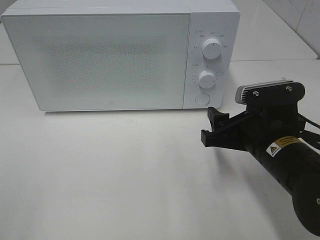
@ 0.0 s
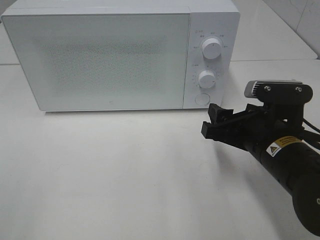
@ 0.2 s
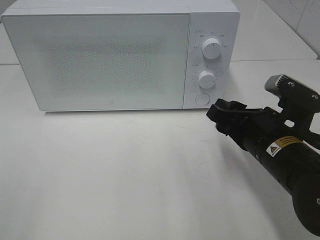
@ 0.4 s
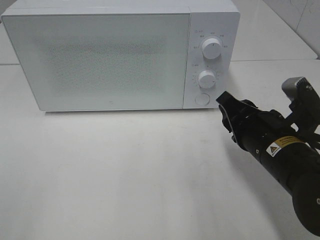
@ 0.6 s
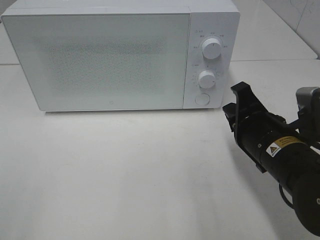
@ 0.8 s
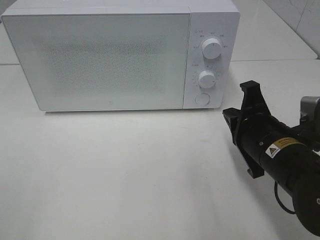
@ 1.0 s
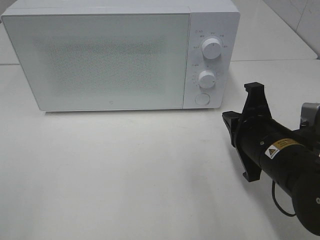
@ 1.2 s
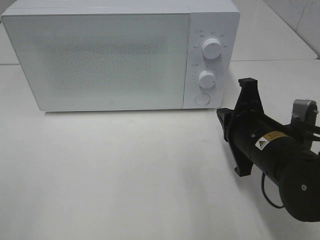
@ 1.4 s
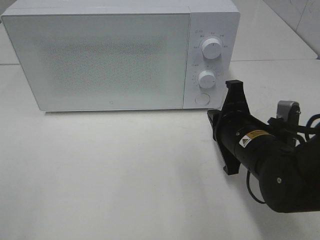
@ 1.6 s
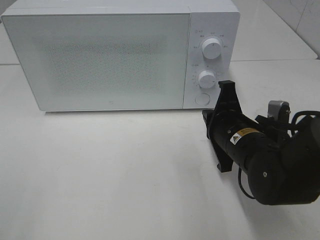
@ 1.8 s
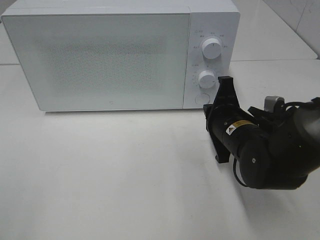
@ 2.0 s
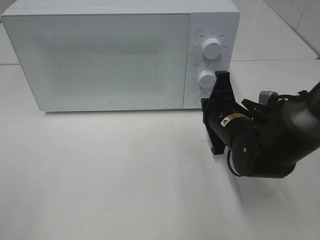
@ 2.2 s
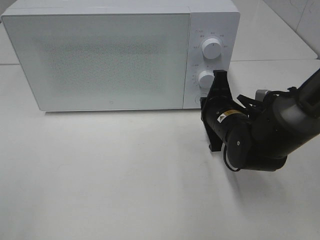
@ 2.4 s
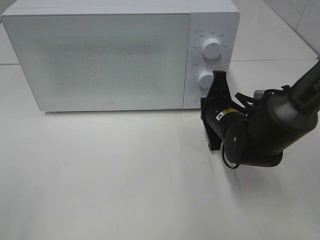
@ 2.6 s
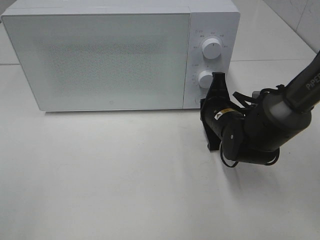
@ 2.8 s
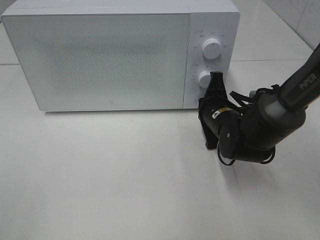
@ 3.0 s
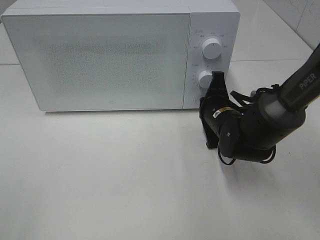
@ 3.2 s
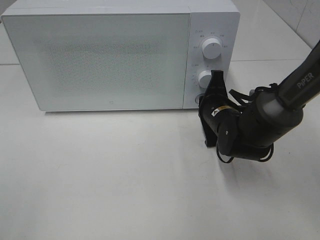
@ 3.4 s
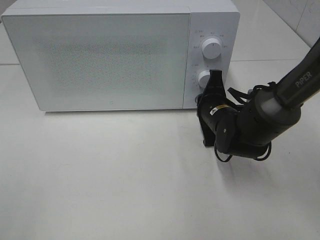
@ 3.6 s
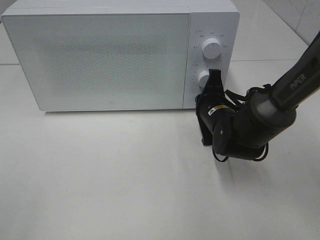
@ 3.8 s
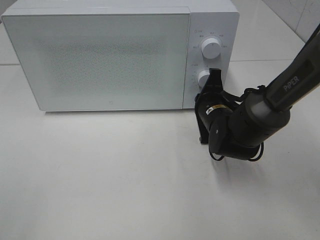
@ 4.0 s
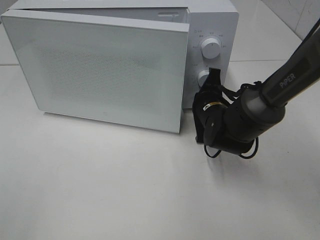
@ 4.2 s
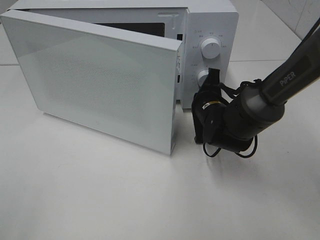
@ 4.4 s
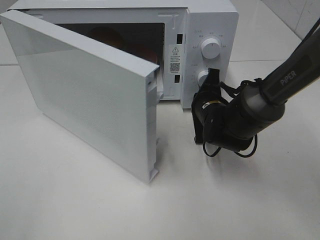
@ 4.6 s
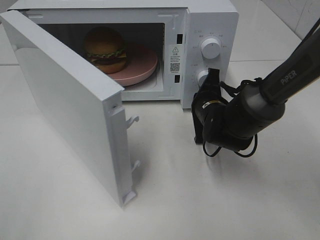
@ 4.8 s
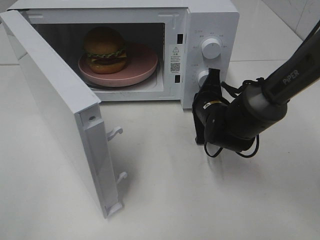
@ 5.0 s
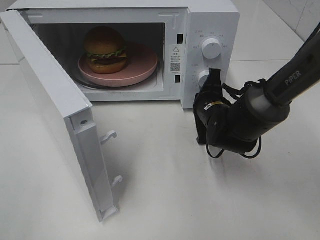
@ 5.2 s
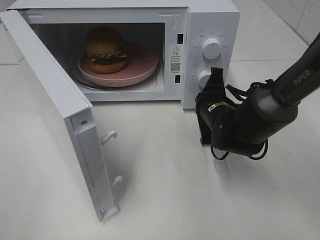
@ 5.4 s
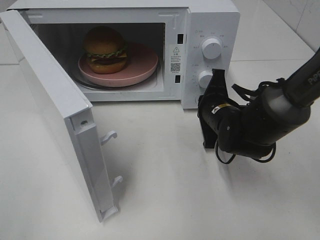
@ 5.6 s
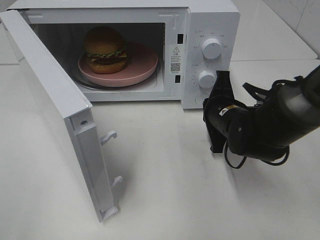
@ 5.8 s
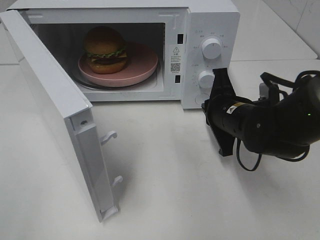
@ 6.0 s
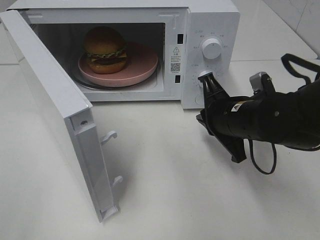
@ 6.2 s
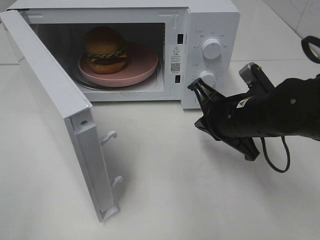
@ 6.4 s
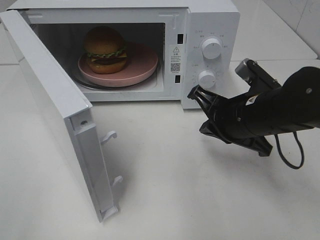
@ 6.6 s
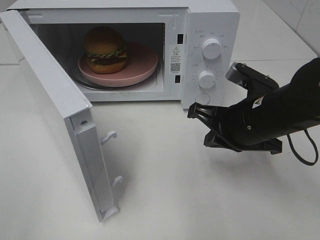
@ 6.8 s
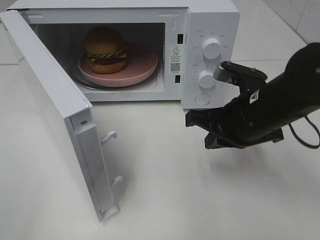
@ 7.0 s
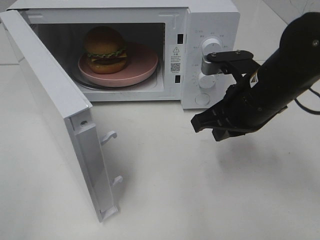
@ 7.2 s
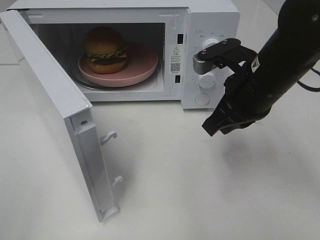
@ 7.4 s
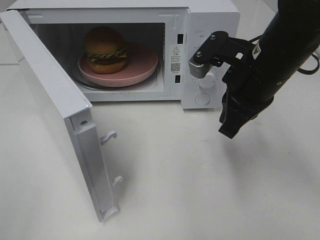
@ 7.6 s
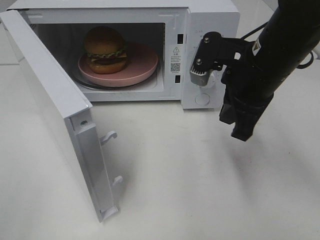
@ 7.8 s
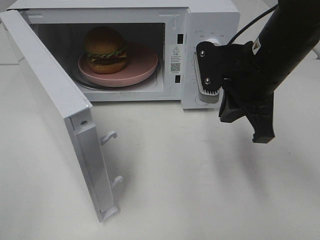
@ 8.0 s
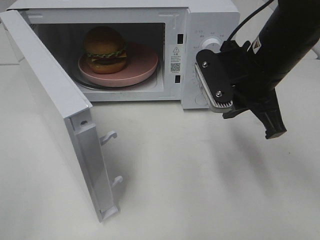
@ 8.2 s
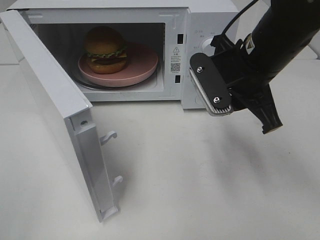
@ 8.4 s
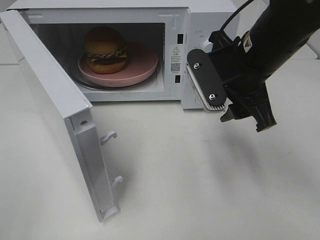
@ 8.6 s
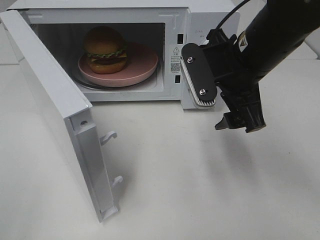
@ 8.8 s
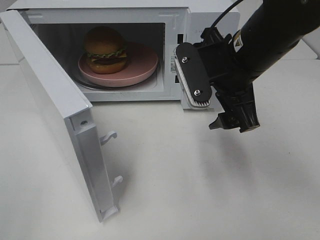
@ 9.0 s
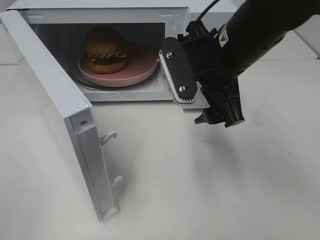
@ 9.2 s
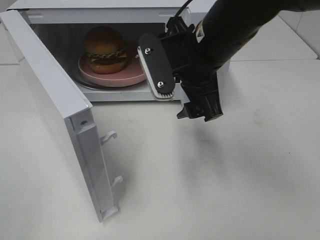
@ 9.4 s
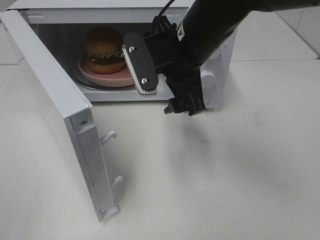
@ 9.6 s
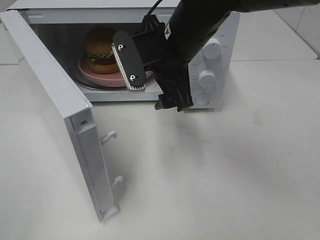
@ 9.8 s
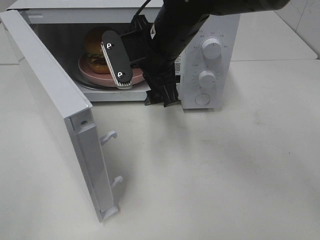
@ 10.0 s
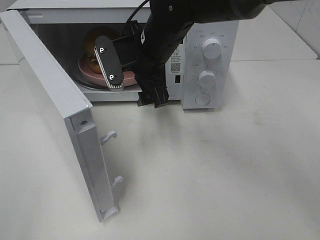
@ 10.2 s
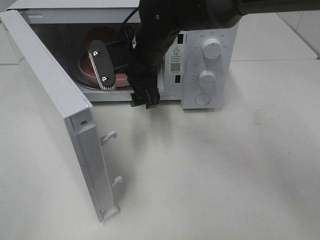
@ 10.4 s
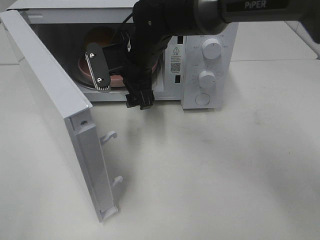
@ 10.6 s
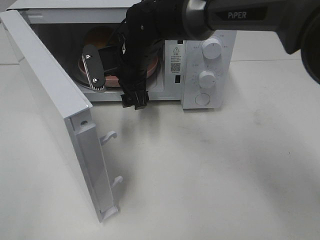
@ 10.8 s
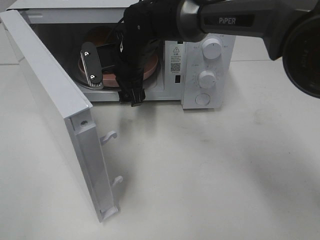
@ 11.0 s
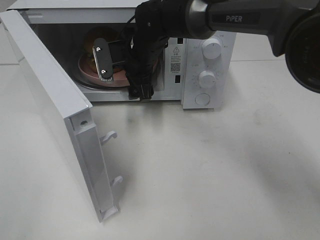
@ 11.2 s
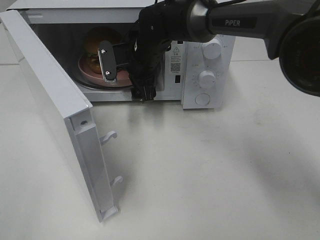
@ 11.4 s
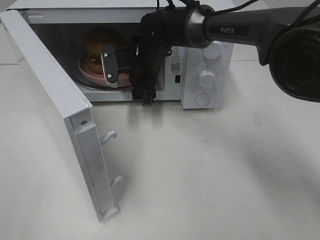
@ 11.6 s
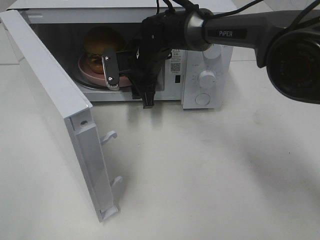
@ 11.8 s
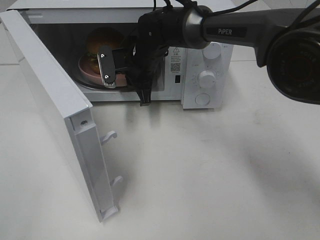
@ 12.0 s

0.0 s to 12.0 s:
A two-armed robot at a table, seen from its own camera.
Task of the whole recording: Heat the burger.
Step, 0.0 to 6.0 s: Right hand: press the switch.
0.0 to 1.6 s: The right gripper closes.
1.6 to 3.0 s: The right gripper heads forward, covering roughly 10 cm.
3.0 to 4.4 s: The grippers make only small movements.
4.4 to 6.0 s: The right gripper heads backward, covering roughly 5 cm.
6.0 to 7.6 s: The right gripper heads upward, covering roughly 10 cm.
7.6 to 9.0 s: The right gripper opens its fingers.
9.0 to 10.4 s: The right gripper travels to the left and forward by roughly 15 cm.
10.4 to 12.0 s: The right gripper shifts roughly 5 cm forward, and closes.

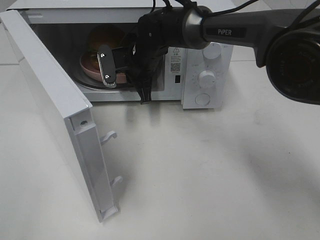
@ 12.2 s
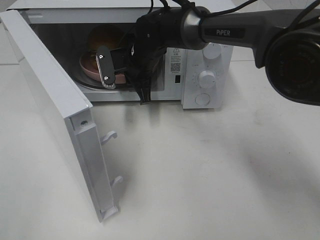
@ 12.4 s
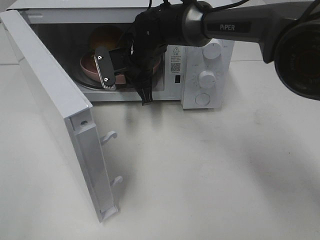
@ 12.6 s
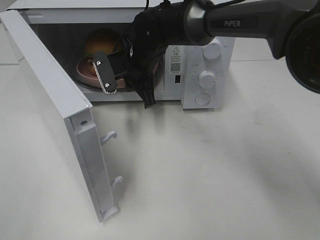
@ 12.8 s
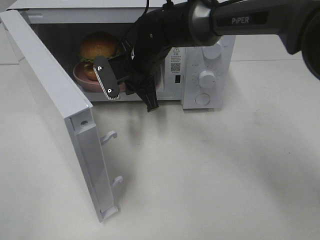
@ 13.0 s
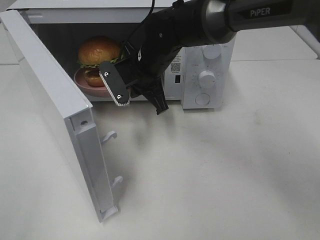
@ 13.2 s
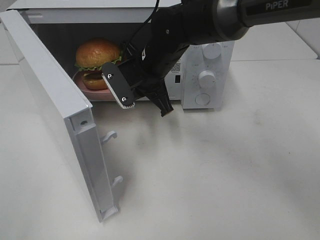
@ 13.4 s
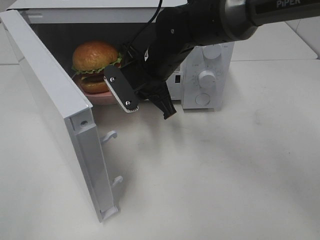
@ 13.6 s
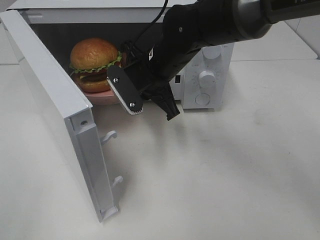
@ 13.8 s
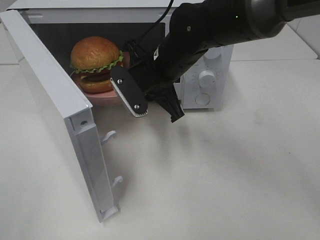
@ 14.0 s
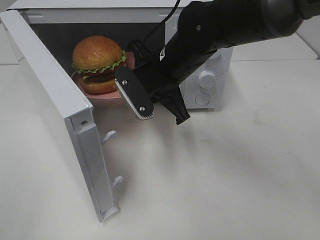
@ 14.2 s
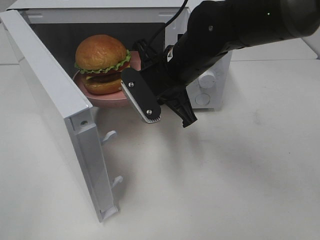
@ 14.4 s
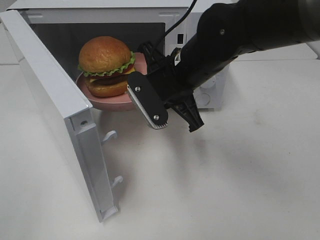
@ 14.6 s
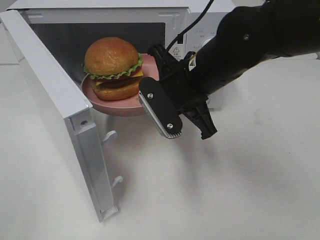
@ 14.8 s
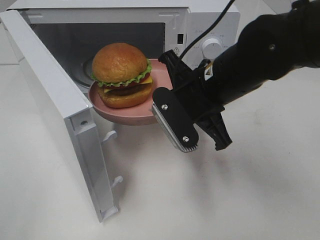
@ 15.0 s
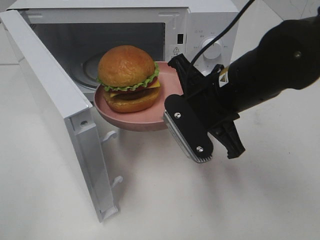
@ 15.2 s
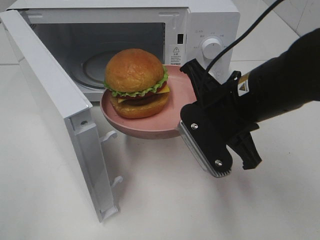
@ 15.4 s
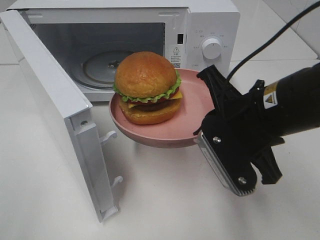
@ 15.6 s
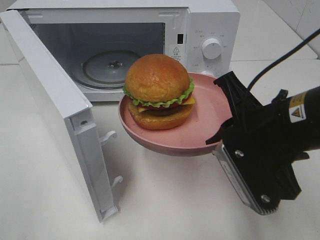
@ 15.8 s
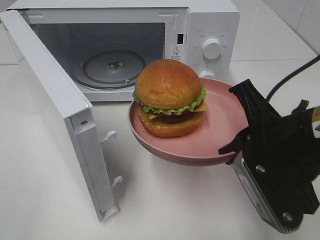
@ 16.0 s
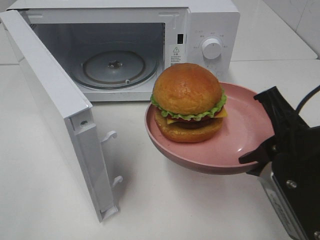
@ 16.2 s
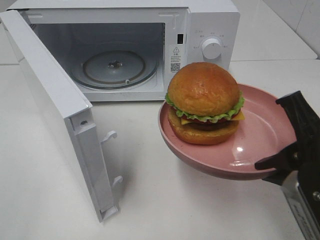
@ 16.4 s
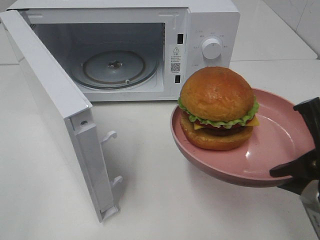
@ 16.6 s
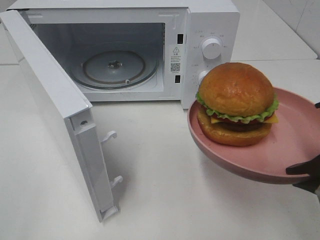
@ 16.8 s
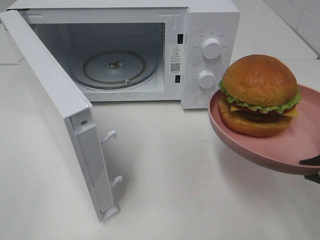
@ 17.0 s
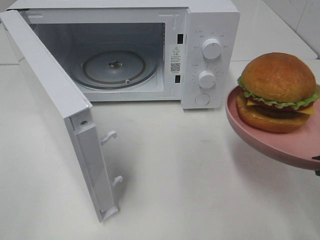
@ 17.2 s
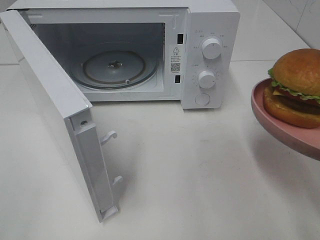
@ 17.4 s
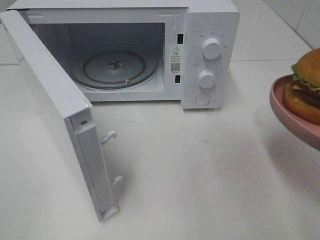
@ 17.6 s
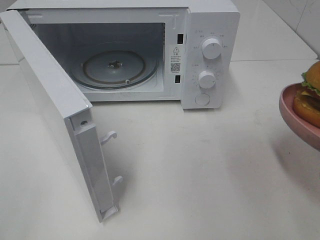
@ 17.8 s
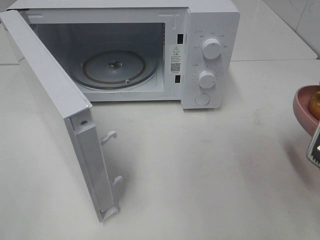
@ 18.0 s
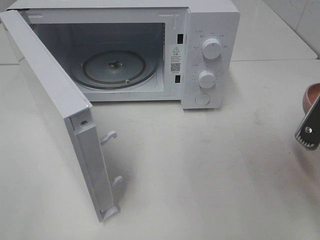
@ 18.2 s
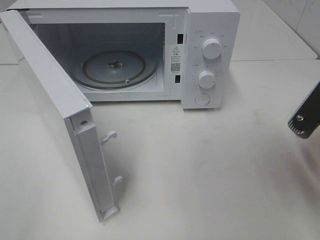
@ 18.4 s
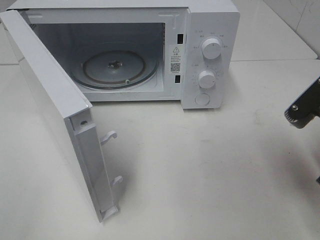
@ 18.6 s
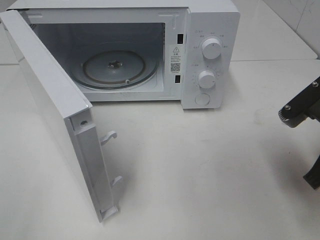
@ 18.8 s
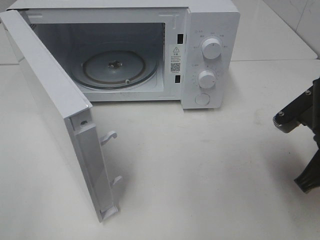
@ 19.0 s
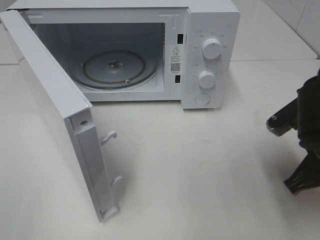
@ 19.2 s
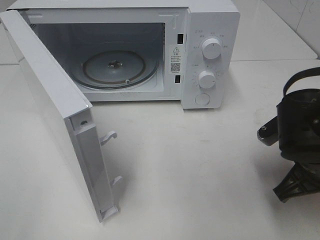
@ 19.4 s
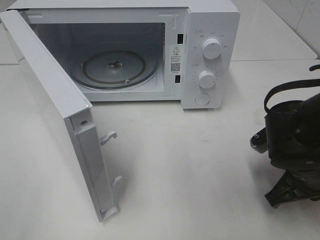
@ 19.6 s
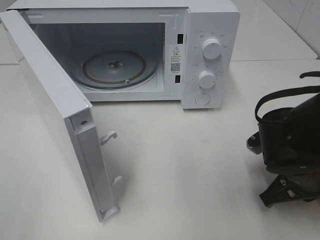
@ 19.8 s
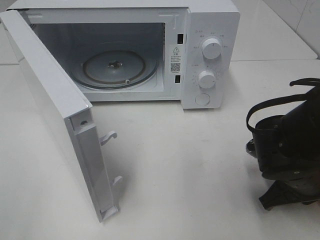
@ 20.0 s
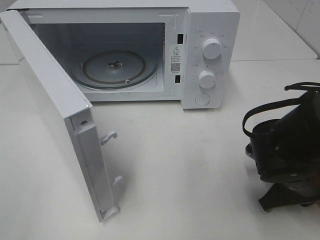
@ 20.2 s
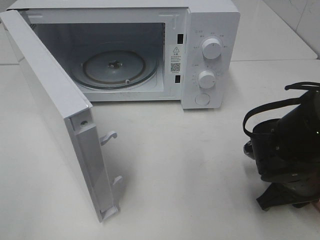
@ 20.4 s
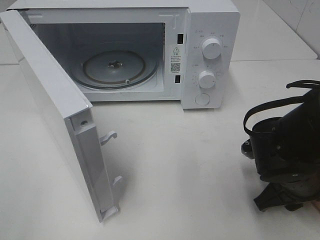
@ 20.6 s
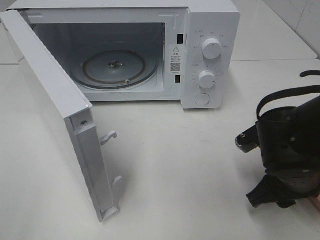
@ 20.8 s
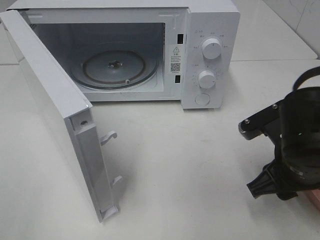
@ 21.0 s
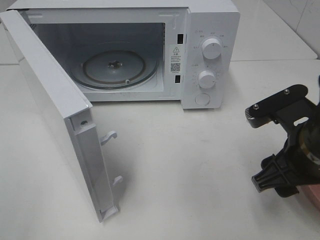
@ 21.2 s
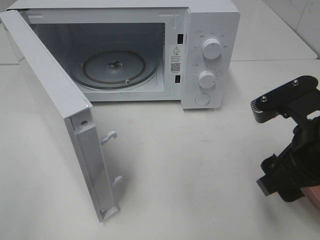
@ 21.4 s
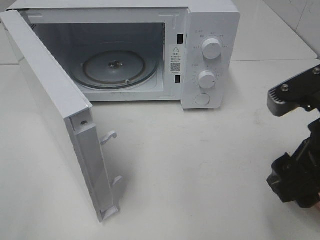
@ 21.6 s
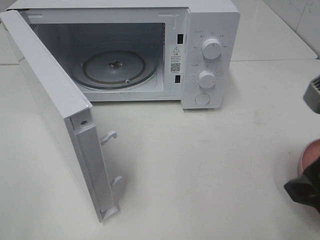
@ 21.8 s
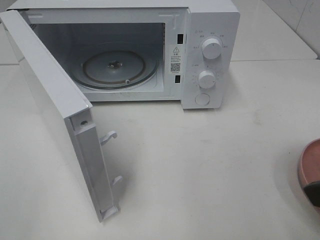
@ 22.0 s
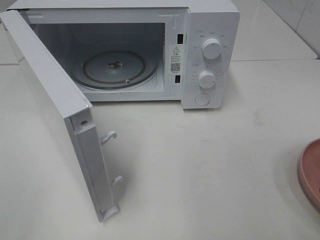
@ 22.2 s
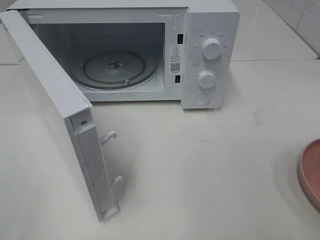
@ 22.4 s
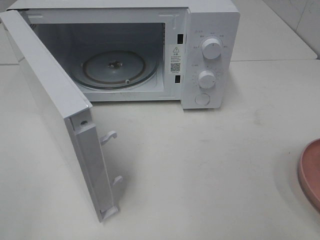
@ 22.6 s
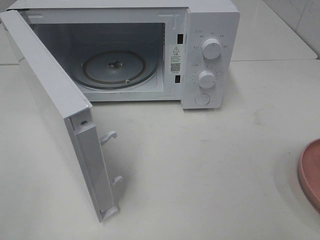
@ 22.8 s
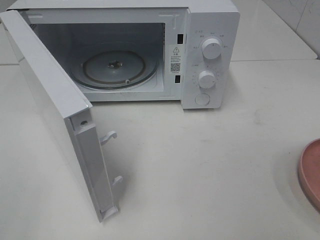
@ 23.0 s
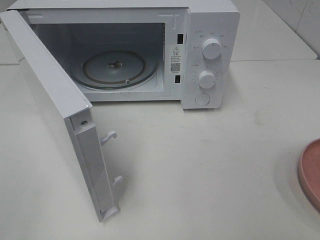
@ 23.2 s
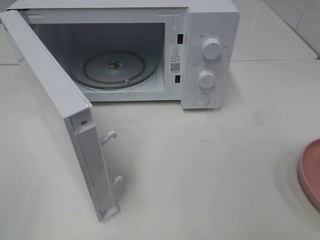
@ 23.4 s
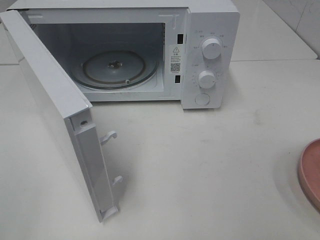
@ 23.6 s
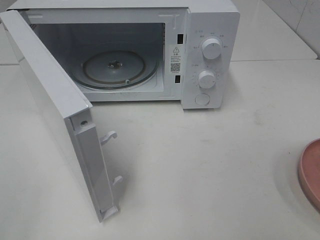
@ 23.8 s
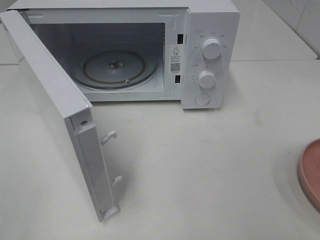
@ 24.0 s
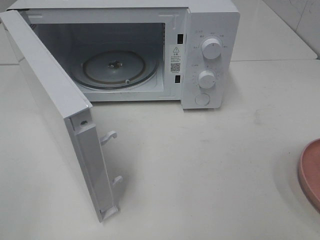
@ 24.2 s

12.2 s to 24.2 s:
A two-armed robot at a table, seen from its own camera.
Task of the whole recording: Heat the burger.
Step, 12.4 to 21.0 s: Right hand: place the plate on the table.
12.2 to 13.8 s: The right gripper shifts roughly 10 cm backward.
13.8 to 15.2 s: The right gripper heads backward and to the right, covering about 15 cm.
15.2 to 16.6 s: The right gripper shifts approximately 20 cm backward and to the right.
18.2 to 19.8 s: The right gripper moves downward and forward, roughly 15 cm.
19.8 to 21.2 s: The right gripper is displaced upward by about 10 cm, and opens its fingers.
21.2 to 22.6 s: The right gripper is displaced backward, upward and to the right by approximately 20 cm.
